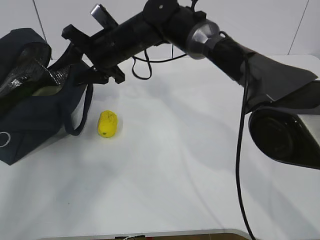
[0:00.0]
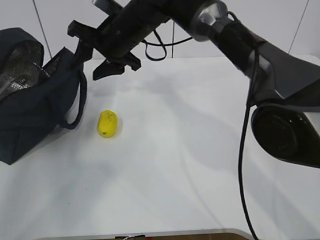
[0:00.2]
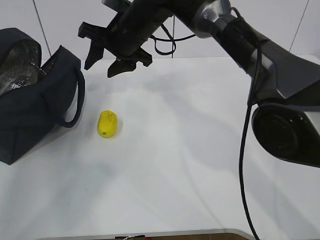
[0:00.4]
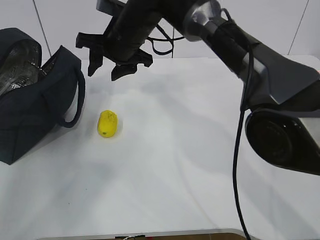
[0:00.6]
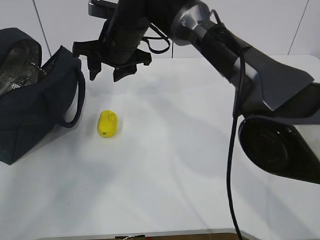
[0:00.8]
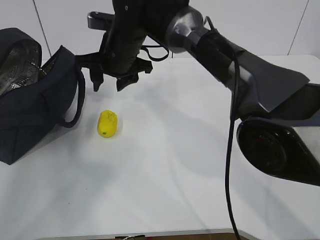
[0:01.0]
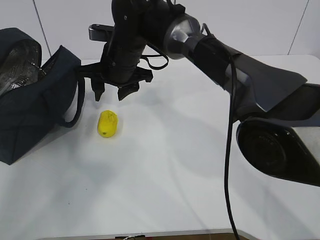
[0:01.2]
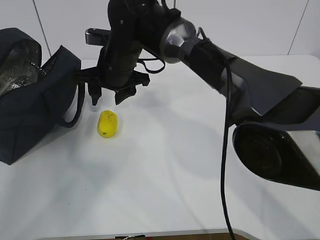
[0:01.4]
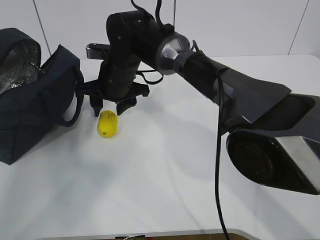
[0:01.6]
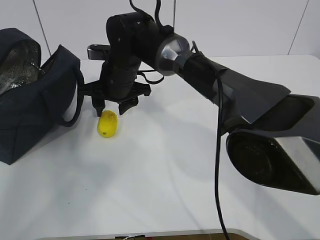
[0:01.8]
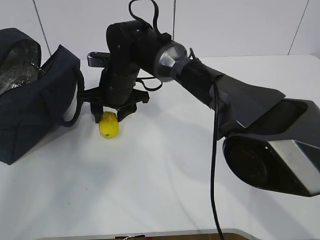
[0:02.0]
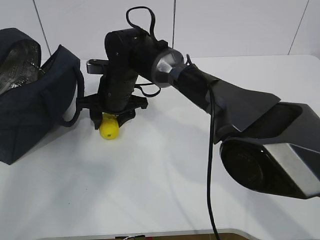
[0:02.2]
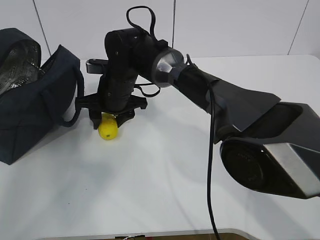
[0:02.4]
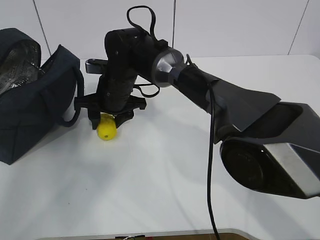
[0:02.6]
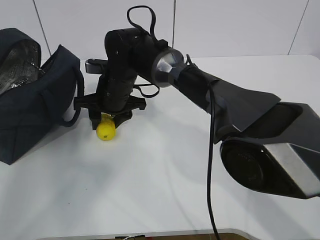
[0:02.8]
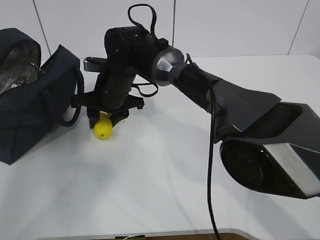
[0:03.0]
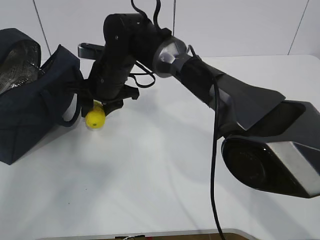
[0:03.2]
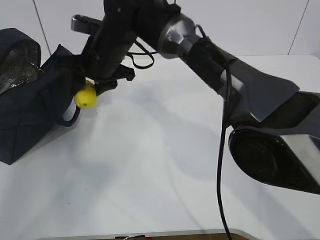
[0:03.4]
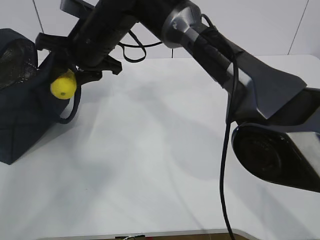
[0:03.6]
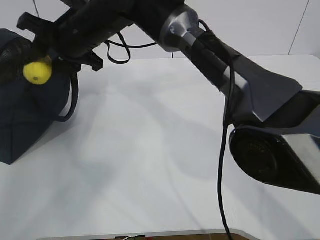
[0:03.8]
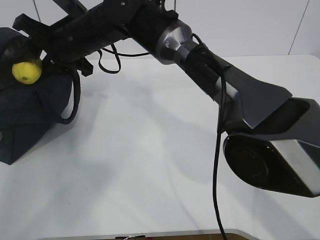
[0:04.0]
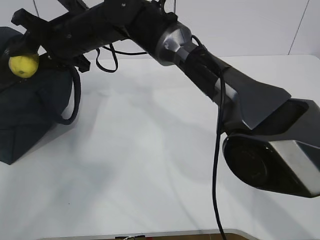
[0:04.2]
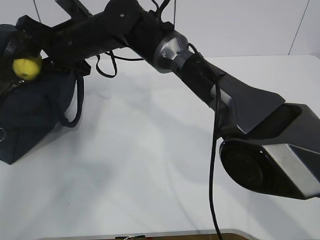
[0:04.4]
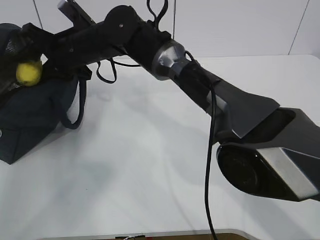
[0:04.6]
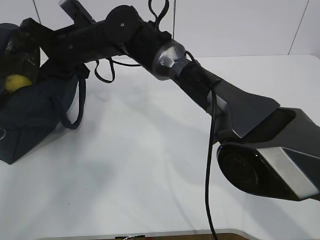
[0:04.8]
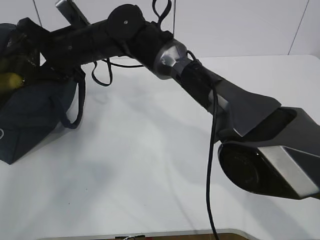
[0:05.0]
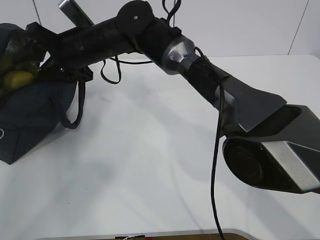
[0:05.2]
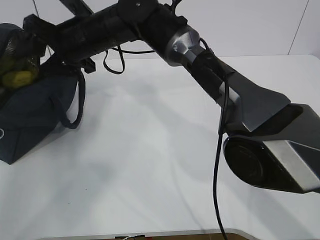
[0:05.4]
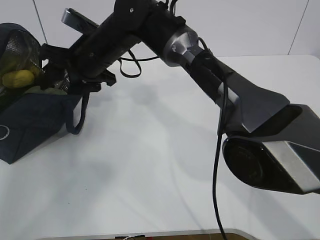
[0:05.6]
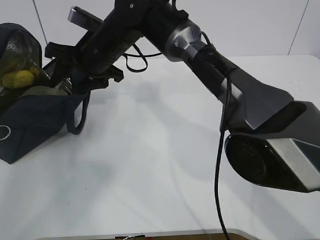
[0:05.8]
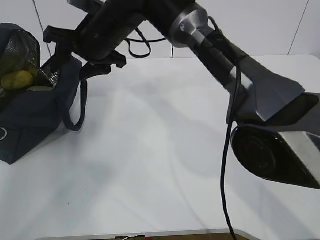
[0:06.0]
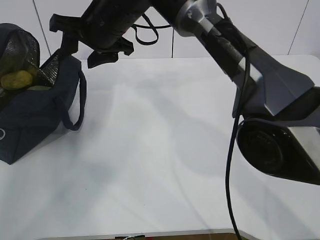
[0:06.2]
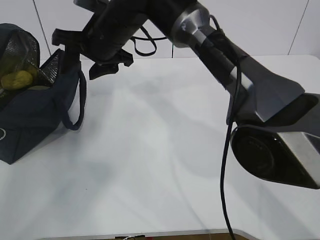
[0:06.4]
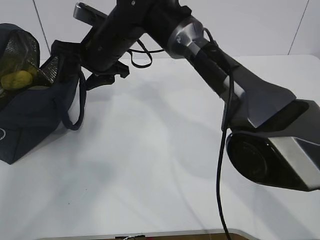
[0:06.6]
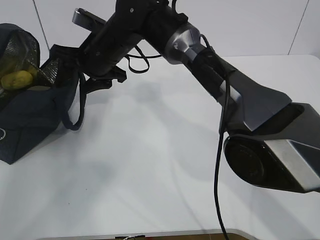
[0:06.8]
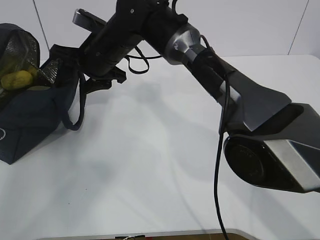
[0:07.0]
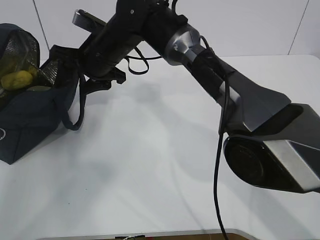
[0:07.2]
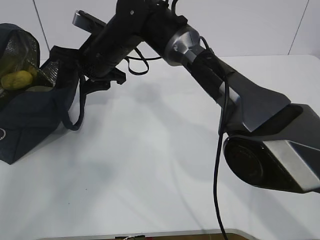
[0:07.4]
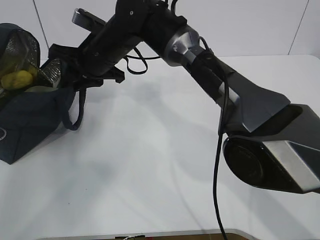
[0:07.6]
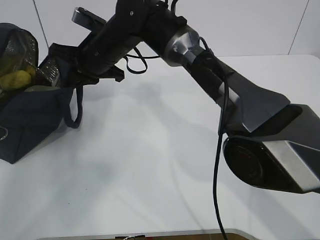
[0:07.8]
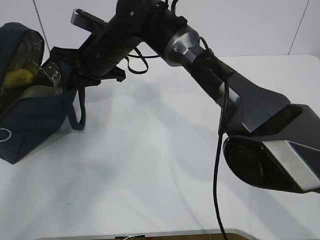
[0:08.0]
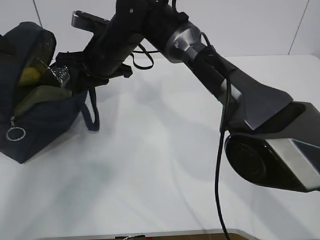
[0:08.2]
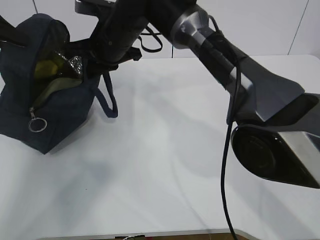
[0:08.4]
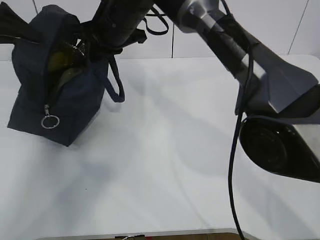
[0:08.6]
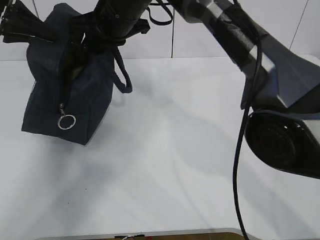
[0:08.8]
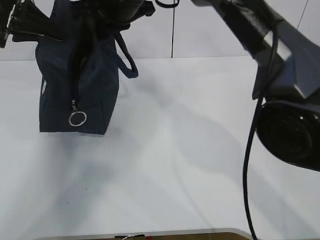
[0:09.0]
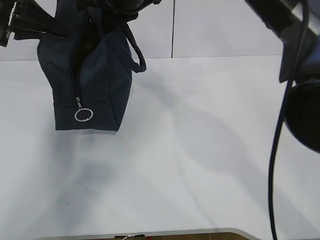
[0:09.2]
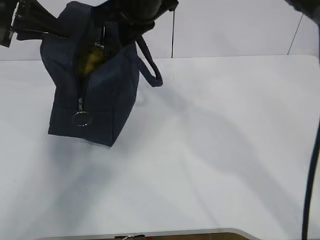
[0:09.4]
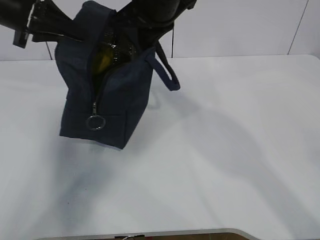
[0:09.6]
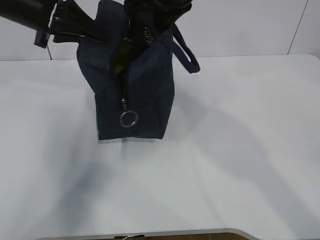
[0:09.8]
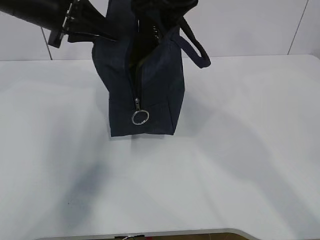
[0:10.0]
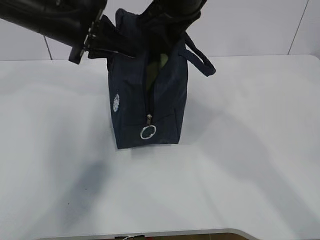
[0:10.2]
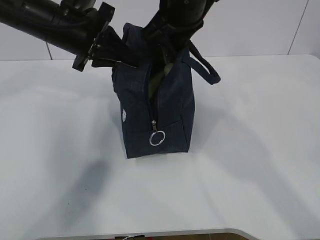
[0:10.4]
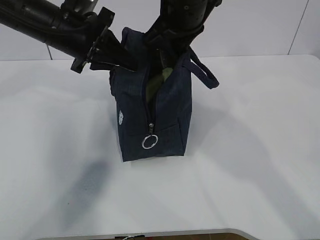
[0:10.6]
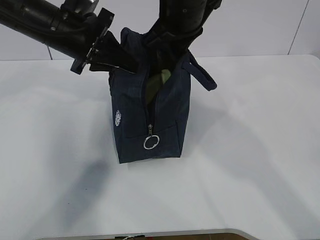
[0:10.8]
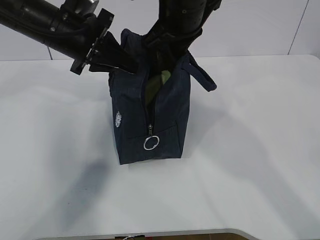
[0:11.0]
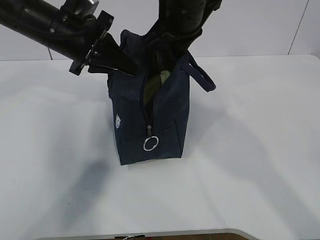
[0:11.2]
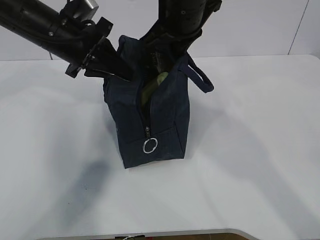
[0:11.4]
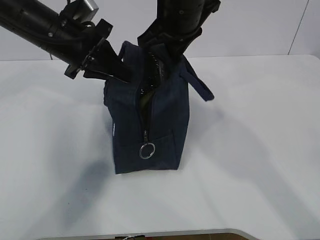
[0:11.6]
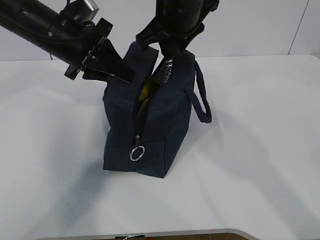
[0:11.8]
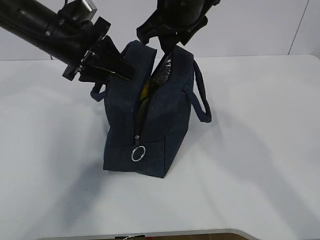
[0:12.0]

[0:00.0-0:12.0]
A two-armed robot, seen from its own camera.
Step, 0:00.6 to 0:02.4: Grab the lunch bag with your right hand.
Step, 0:02.6 to 0:05.8: Move the lunch bag to the right.
0:01.6 to 0:03.0: The grippers stay close to where they were, moving slightly.
0:03.0 to 0:04.4: The right gripper moves upward, roughly 10 cm.
0:06.0 to 0:07.6: The right gripper closes up.
0:07.6 to 0:09.0: The left gripper is displaced to the right by some 15 cm, while the right gripper goes about 10 cm upward, and closes its fingers.
0:09.0 to 0:10.4: The right gripper travels to the right by approximately 10 cm, while the left gripper shifts about 10 cm to the right.
0:10.4 to 0:12.0: The right gripper opens, while the left gripper opens up.

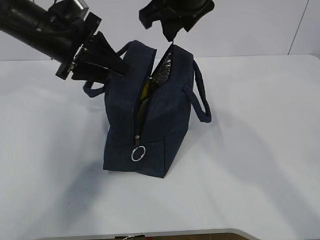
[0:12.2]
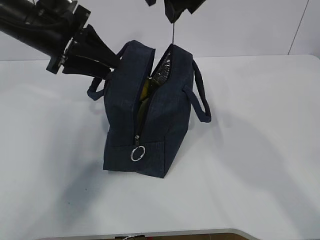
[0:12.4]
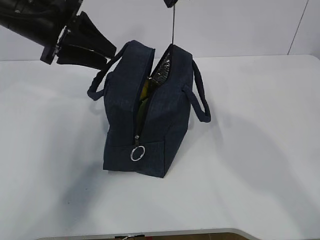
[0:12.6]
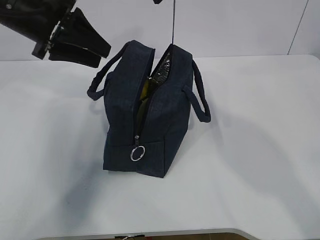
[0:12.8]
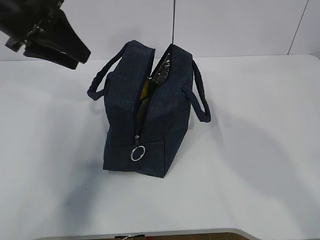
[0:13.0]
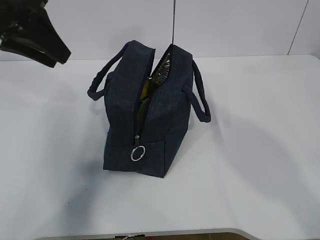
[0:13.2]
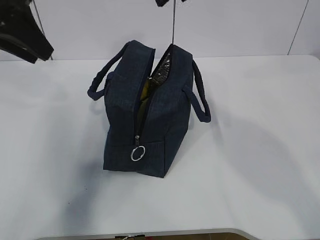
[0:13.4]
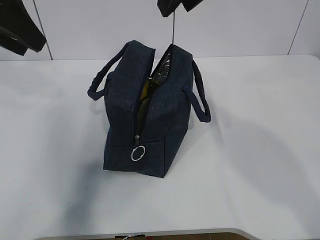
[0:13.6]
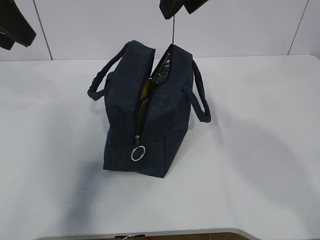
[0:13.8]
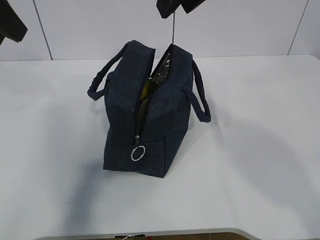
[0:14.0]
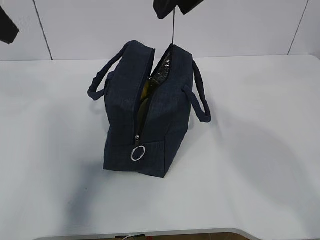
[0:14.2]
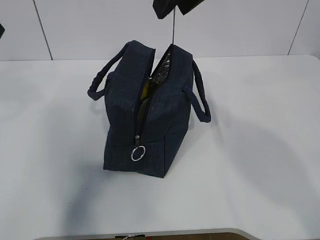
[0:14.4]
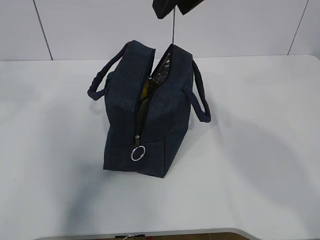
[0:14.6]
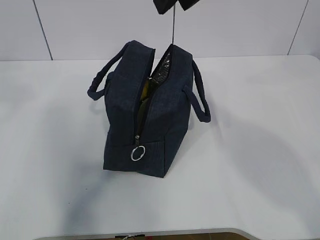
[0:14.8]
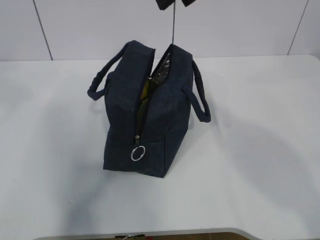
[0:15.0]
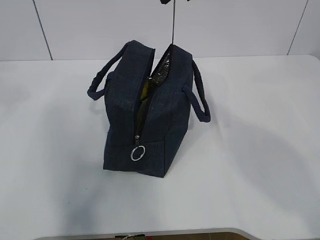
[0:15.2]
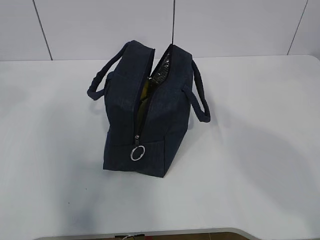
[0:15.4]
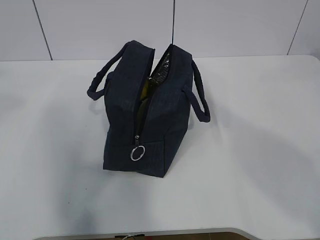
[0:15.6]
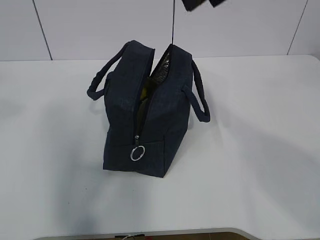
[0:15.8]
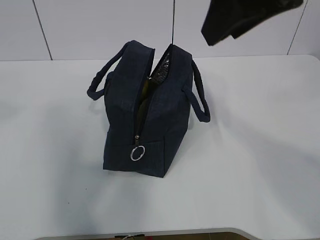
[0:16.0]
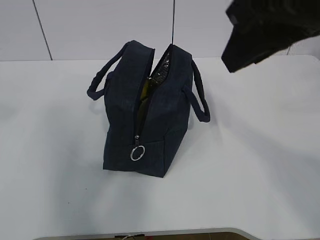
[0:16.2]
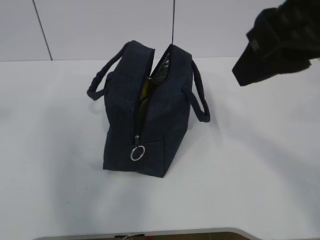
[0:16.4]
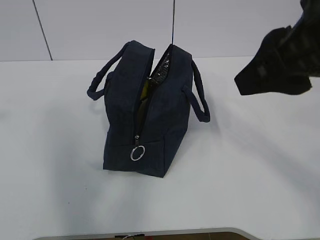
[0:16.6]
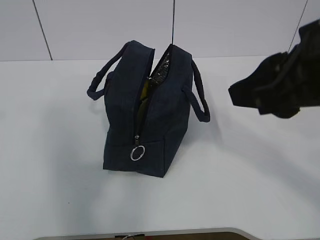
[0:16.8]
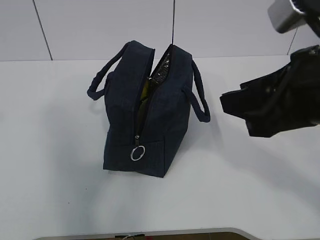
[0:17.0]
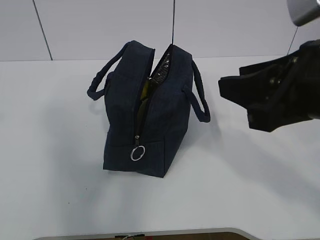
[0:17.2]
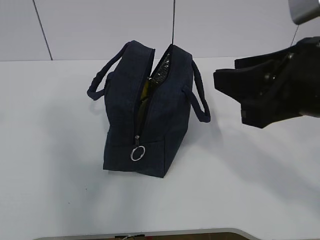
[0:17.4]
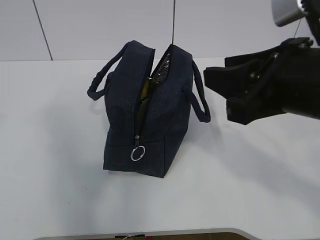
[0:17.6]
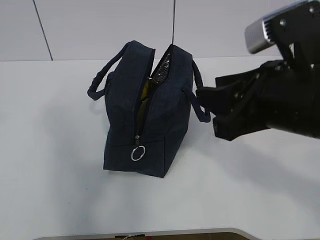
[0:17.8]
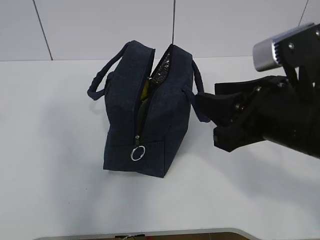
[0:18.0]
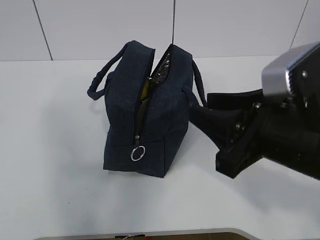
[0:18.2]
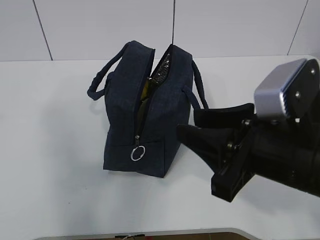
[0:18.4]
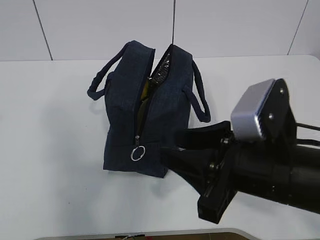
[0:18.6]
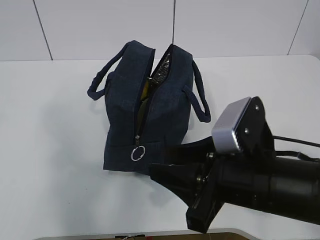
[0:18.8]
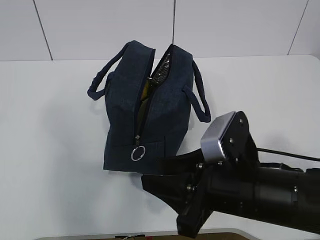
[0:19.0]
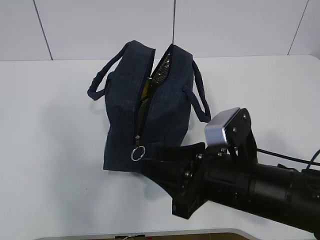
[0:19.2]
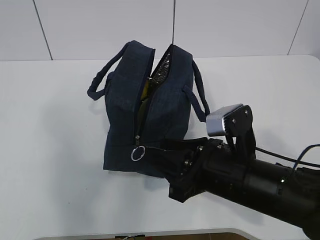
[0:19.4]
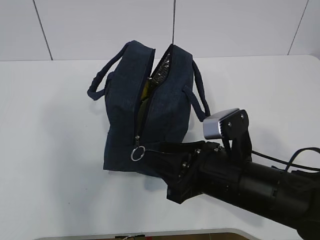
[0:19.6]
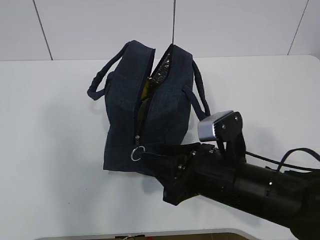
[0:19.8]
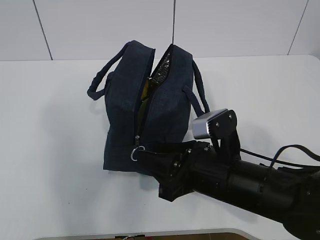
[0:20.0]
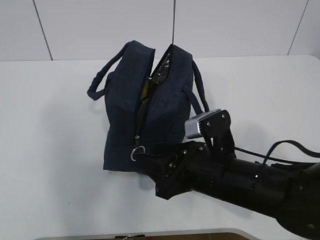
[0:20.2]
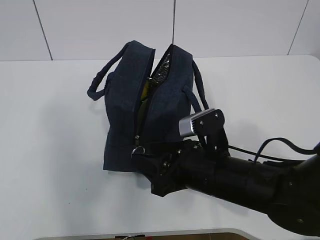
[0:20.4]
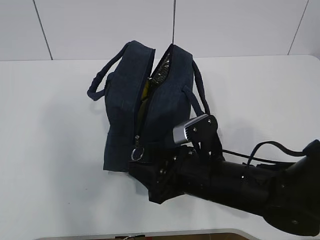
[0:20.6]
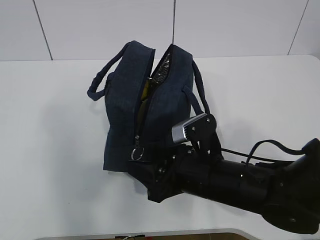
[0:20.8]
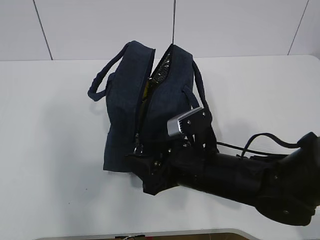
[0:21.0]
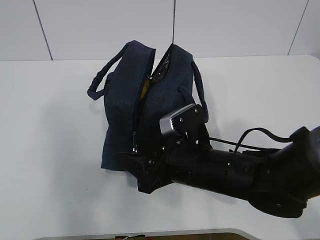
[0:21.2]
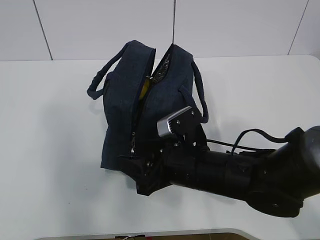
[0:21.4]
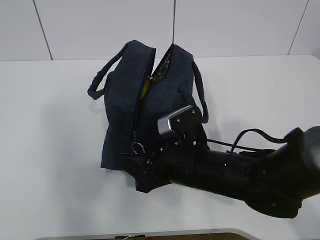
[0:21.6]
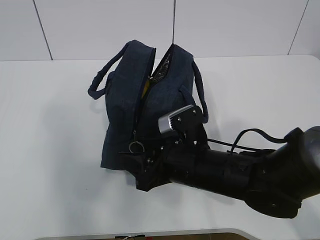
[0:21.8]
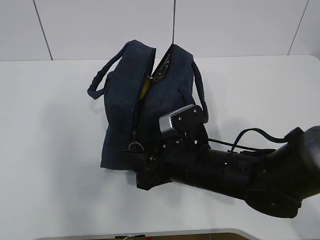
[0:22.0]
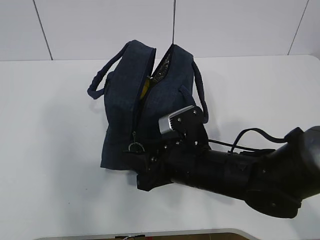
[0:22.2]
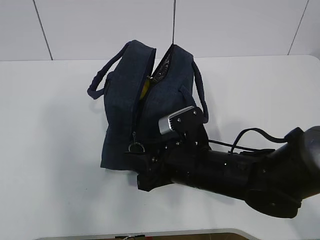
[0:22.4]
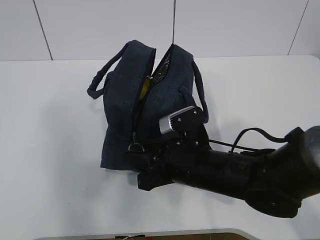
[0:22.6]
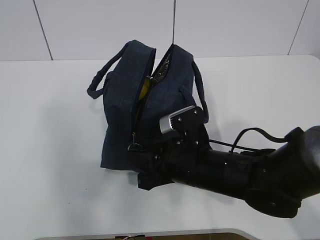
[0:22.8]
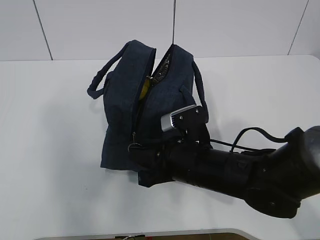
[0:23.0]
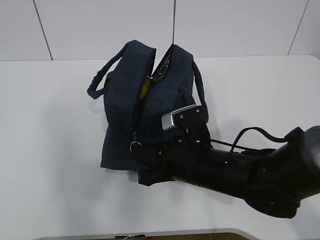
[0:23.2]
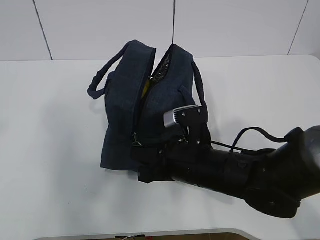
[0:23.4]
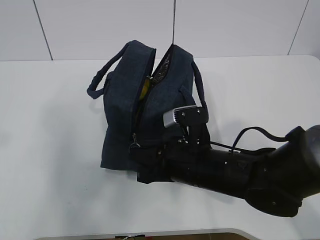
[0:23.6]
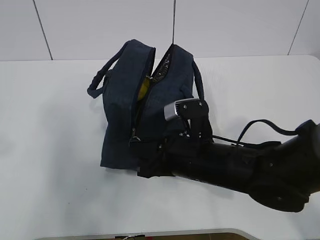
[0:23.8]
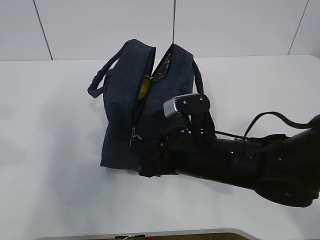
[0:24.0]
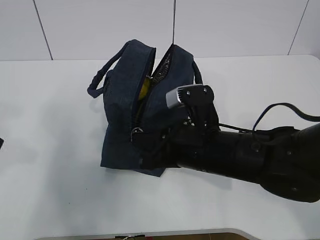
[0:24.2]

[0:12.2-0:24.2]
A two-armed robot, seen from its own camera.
Step, 0:12.2 to 0:22.0: Grab the lunch bag with your left hand.
0:12.2 to 0:13.8: The right gripper travels backward and upward by approximately 10 cm, while the left gripper shifts approximately 15 cm upward, backward and to the left.
0:13.8 to 0:15.2: The left gripper moves backward and upward, about 10 cm.
0:15.2 to 0:16.6: The right gripper goes about 15 cm backward, to the right and downward.
0:16.6 to 0:18.2: The right gripper moves downward, approximately 15 cm.
0:18.2 to 0:19.8: The right gripper goes roughly 10 cm downward.
0:19.8 to 0:21.2: The right gripper ends up about 5 cm from where it was.
0:21.2 to 0:22.6: Neither gripper changes place.
0:22.6 to 0:24.2: The left gripper is displaced downward and forward by some 20 cm, while the right gripper closes its fingers.
